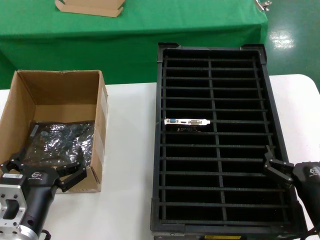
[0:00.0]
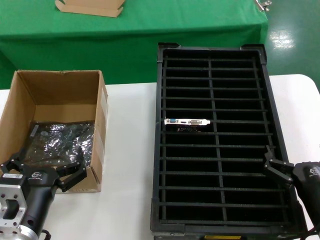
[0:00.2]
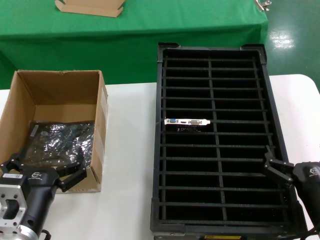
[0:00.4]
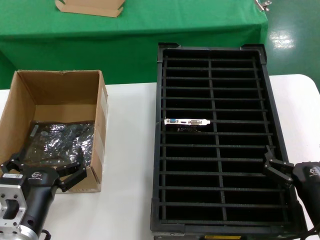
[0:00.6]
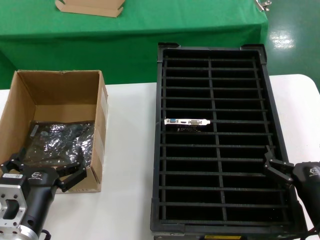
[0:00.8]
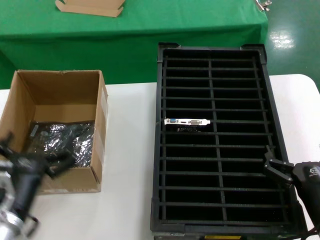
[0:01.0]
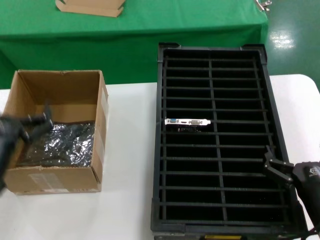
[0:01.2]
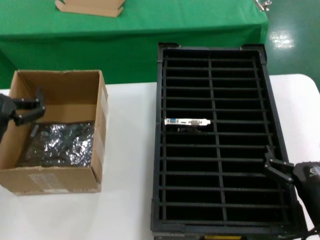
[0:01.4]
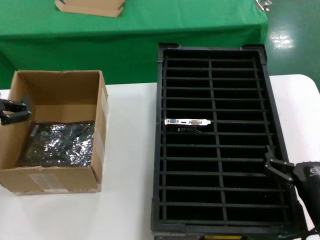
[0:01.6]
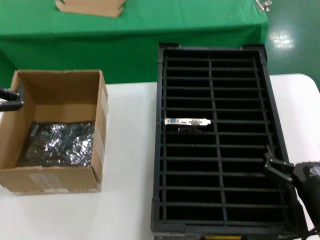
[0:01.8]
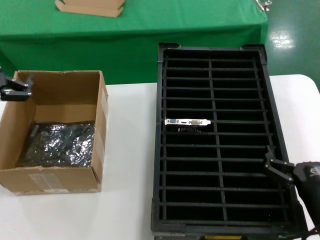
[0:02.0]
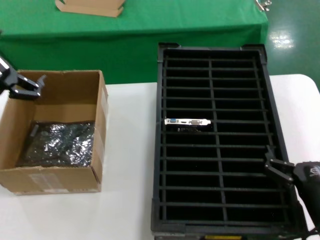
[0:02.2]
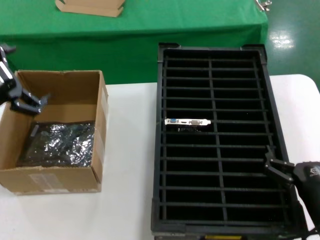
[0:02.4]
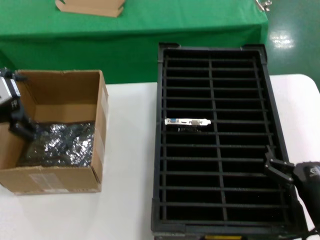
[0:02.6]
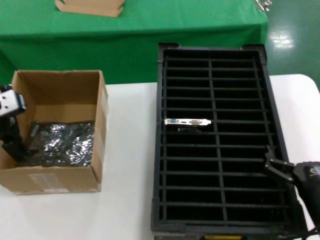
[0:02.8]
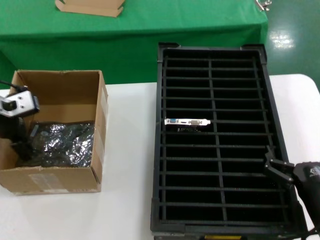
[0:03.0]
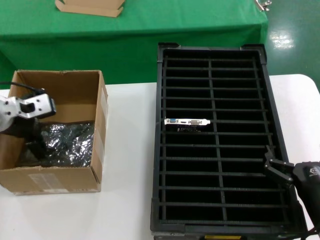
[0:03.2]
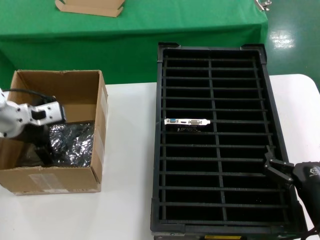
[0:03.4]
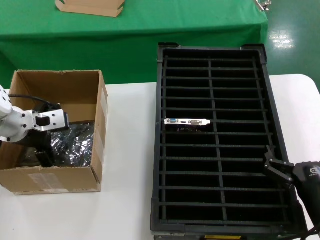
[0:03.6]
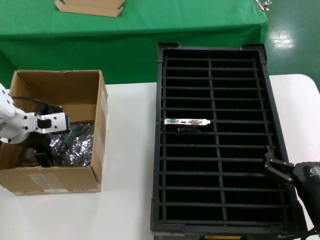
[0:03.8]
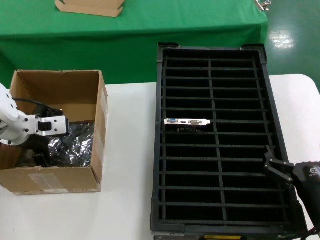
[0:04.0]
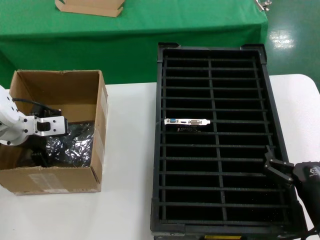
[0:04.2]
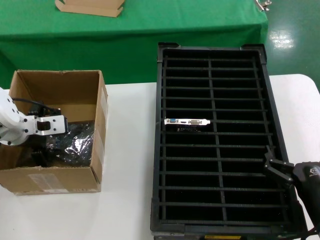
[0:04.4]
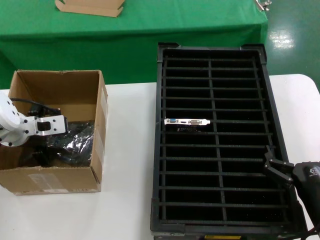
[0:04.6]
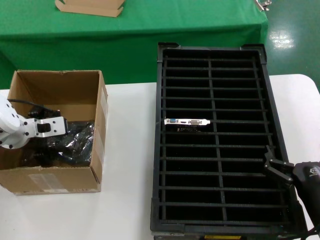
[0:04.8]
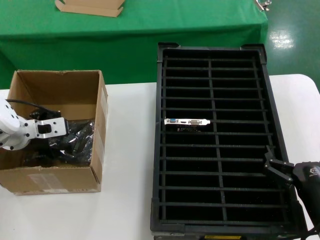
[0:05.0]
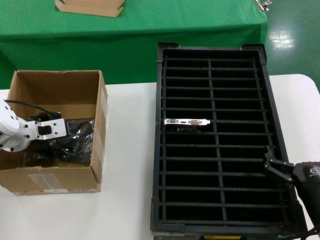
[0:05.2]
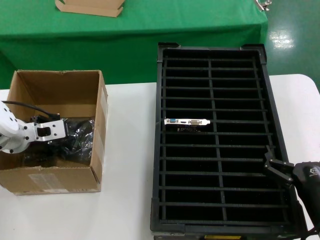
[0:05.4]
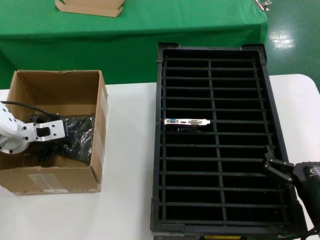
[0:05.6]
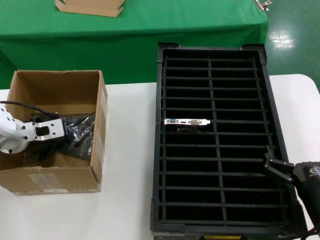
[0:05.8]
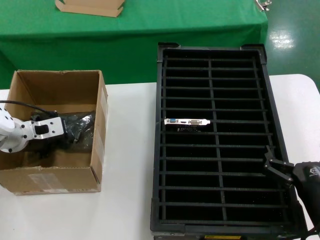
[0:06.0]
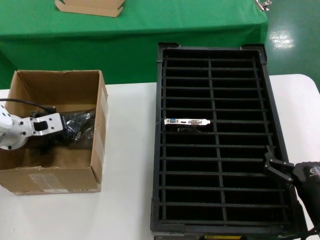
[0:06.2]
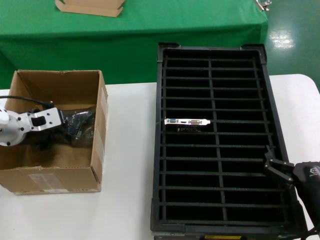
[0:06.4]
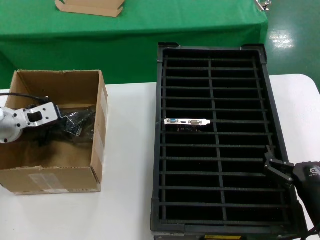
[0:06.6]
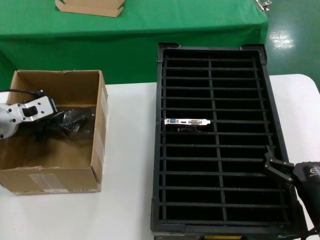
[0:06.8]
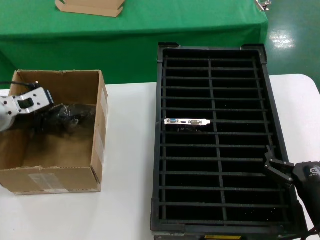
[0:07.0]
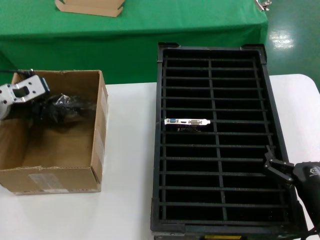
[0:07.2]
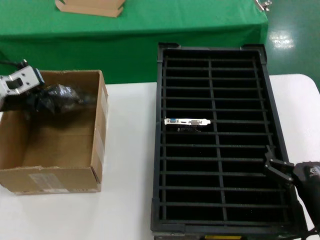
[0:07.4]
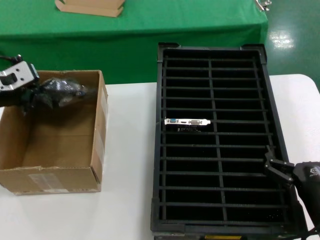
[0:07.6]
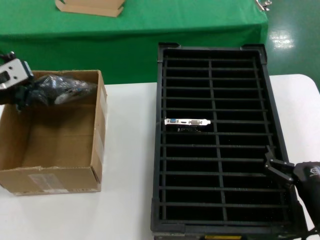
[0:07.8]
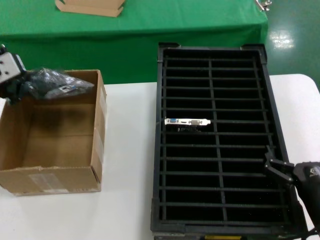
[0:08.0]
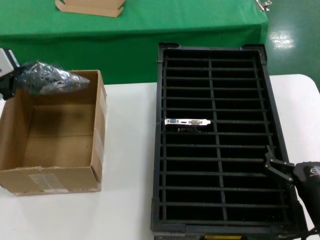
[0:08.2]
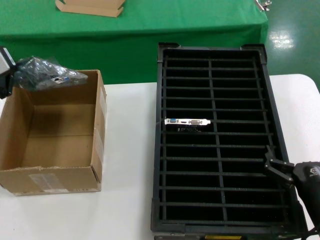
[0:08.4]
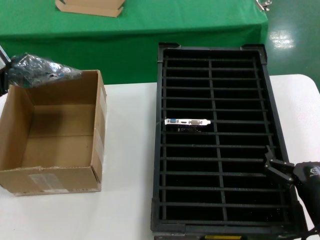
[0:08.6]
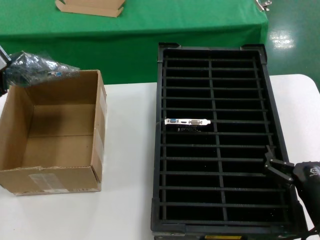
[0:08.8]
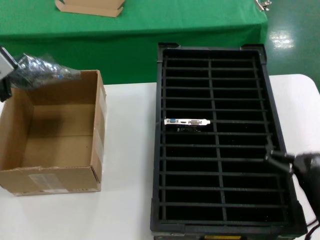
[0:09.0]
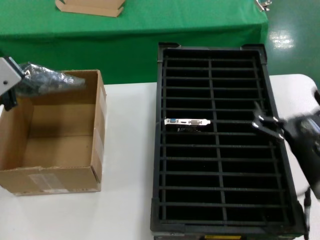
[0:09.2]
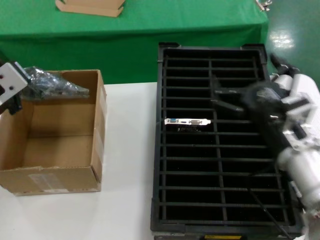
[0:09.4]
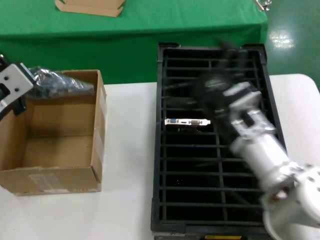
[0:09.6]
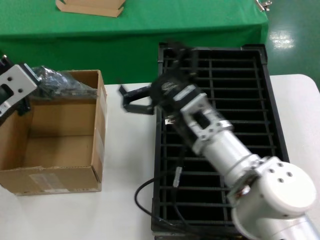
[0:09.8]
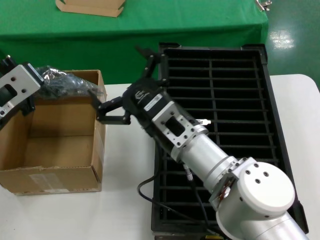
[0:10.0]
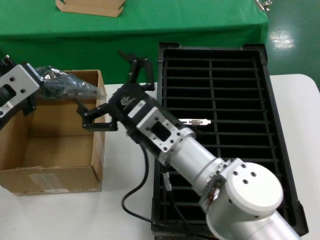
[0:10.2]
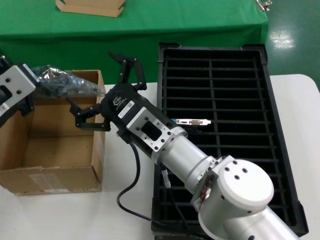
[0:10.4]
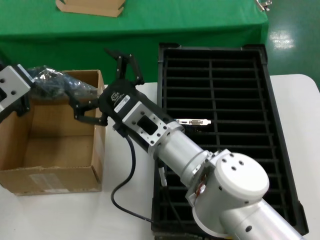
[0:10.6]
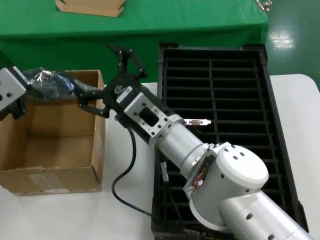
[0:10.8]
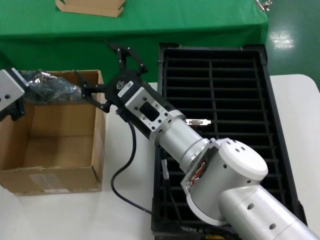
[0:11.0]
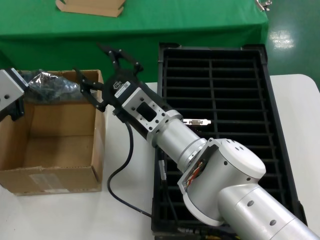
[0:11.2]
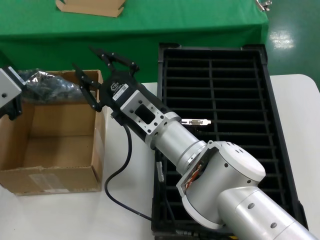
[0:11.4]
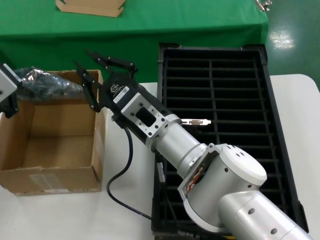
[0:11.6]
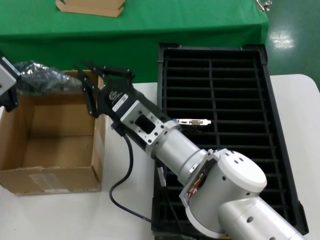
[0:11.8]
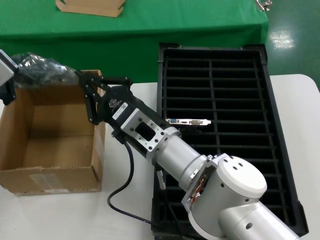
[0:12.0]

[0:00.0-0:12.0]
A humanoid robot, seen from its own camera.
Task of the whole recording: take out graphics card from box remove packaging put into black container.
Step, 0:00.0 to 0:06.0: Grasp the bag.
Step, 0:06.2 to 0:08.8: Lift the bag.
0:00.0 to 0:01.6: The left hand moves upward and to the left, some 15 cm.
0:01.6 to 0:03.0: The left hand travels forward and to the left by about 20 cm.
0:03.0 to 0:04.4: The left hand travels to the right and downward by some 10 cm.
0:04.4 to 0:06.0: The hands move only a little.
0:06.0 to 0:07.6: The left hand shifts about 10 cm upward.
0:07.6 to 0:09.0: The left hand is displaced backward and to the right by roughly 15 cm.
0:09.0 to 0:10.4: The left hand shifts by approximately 5 cm, while the right hand goes about 25 cm to the left and forward.
0:10.4 to 0:12.0: There are only small adjustments of the hands.

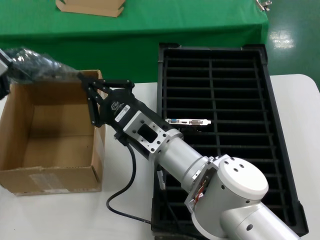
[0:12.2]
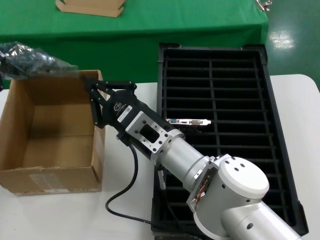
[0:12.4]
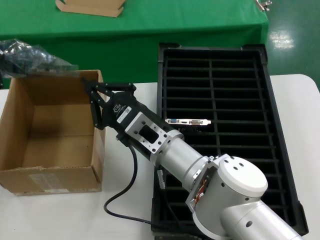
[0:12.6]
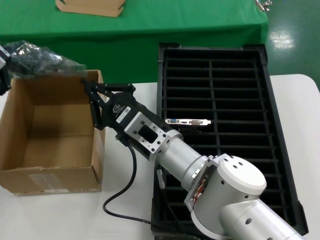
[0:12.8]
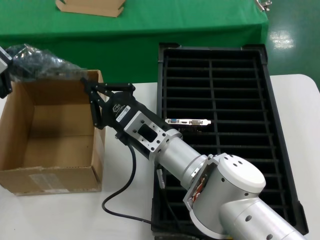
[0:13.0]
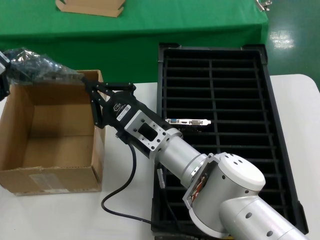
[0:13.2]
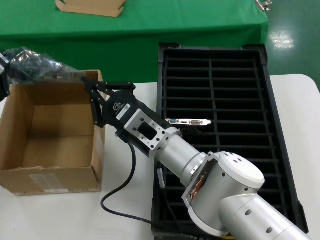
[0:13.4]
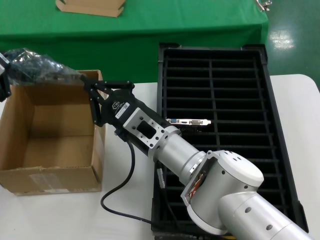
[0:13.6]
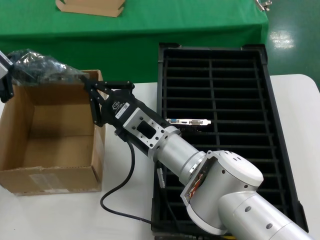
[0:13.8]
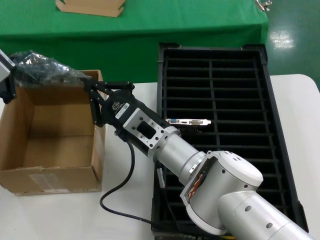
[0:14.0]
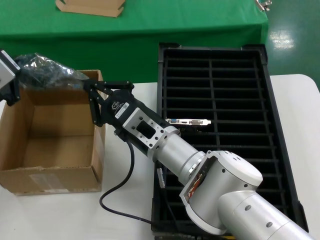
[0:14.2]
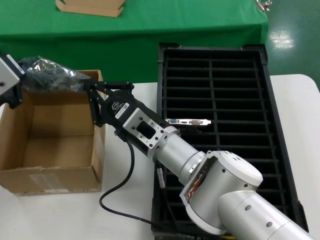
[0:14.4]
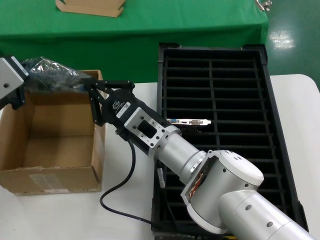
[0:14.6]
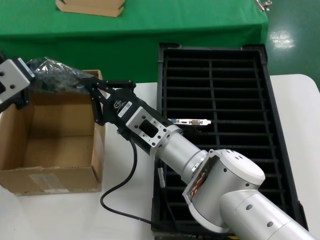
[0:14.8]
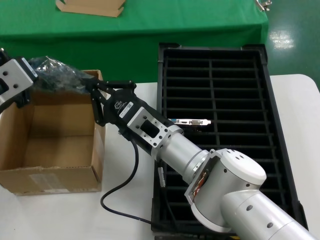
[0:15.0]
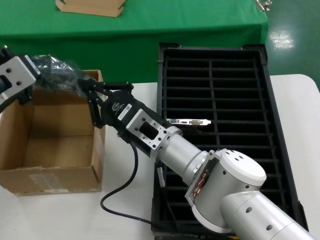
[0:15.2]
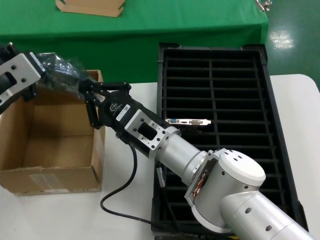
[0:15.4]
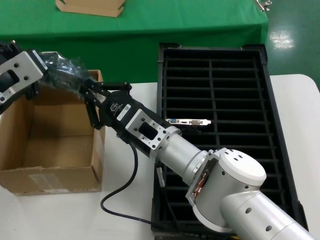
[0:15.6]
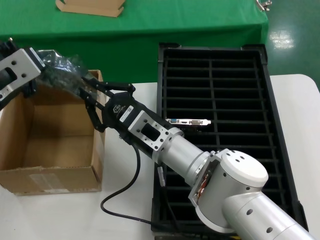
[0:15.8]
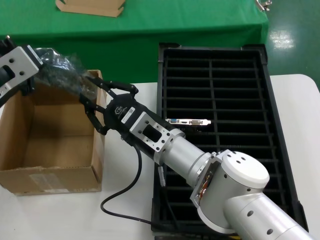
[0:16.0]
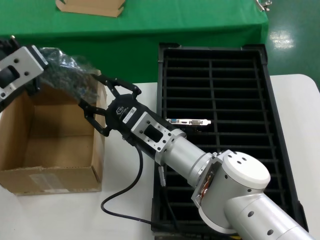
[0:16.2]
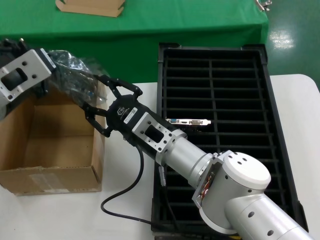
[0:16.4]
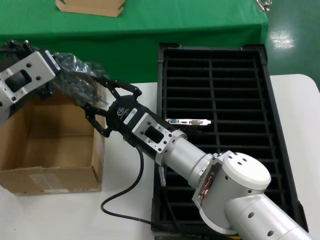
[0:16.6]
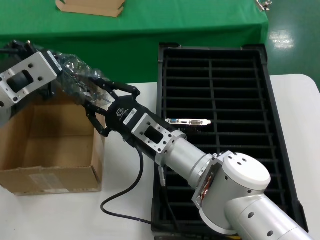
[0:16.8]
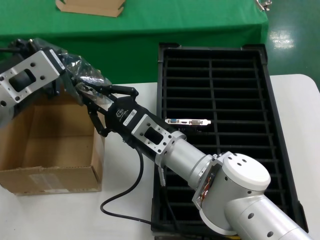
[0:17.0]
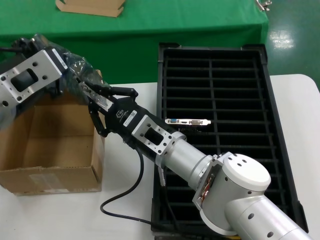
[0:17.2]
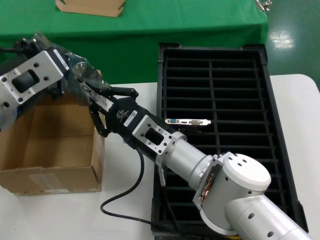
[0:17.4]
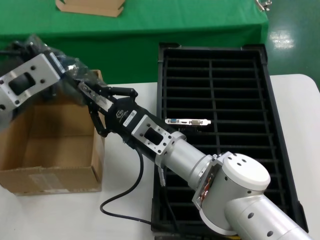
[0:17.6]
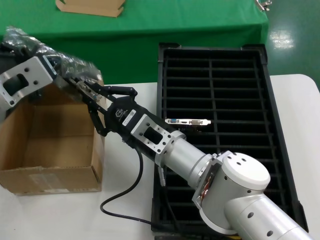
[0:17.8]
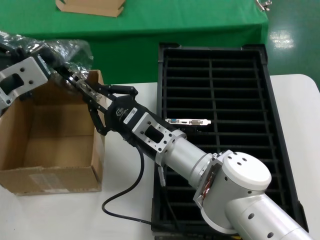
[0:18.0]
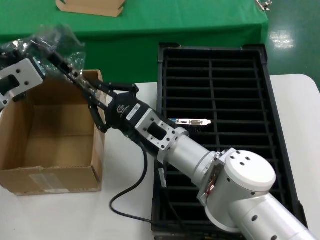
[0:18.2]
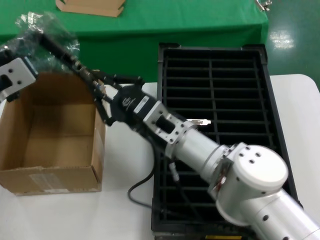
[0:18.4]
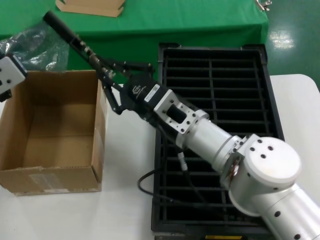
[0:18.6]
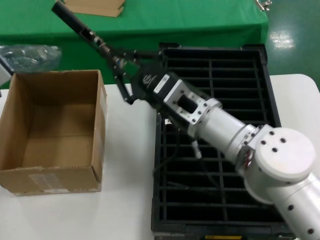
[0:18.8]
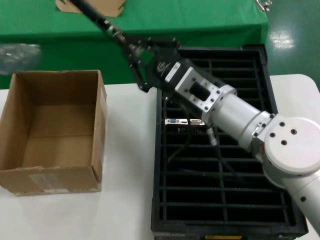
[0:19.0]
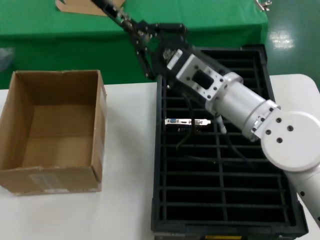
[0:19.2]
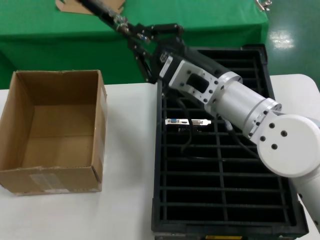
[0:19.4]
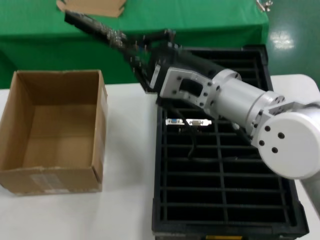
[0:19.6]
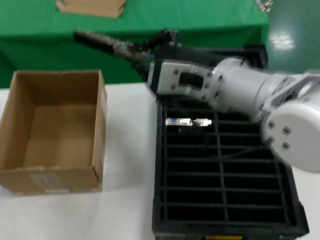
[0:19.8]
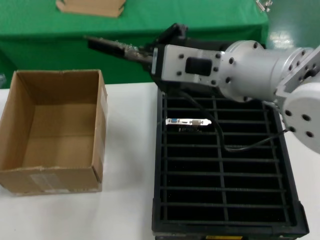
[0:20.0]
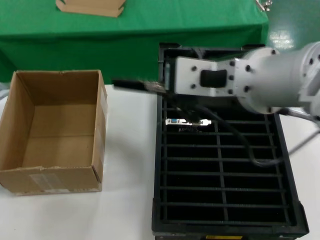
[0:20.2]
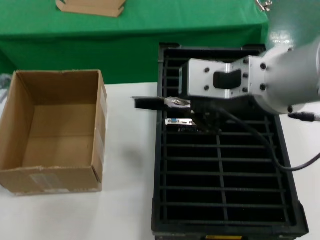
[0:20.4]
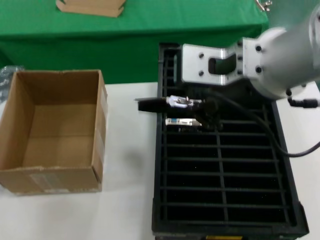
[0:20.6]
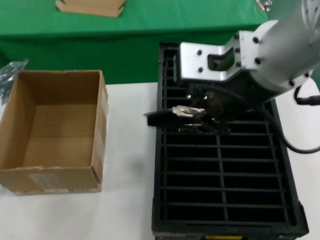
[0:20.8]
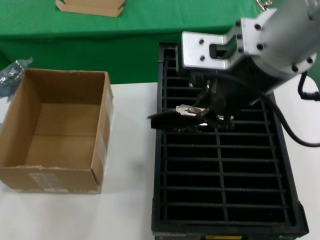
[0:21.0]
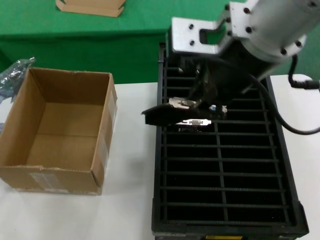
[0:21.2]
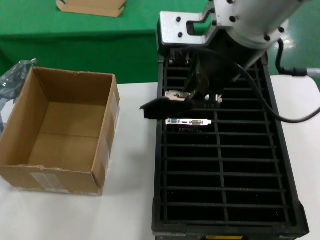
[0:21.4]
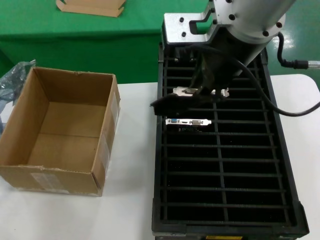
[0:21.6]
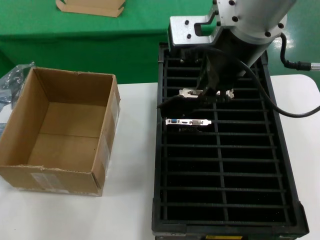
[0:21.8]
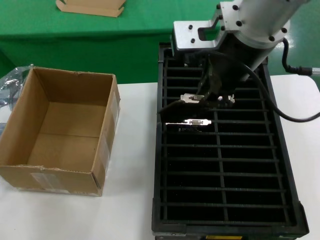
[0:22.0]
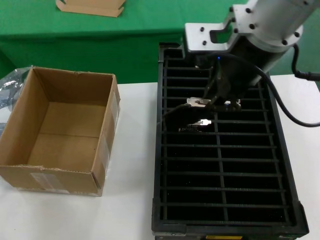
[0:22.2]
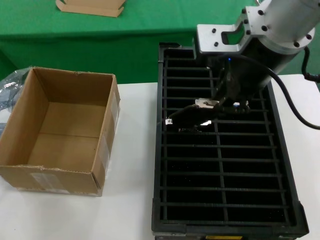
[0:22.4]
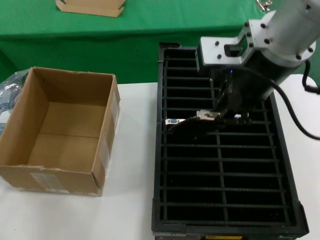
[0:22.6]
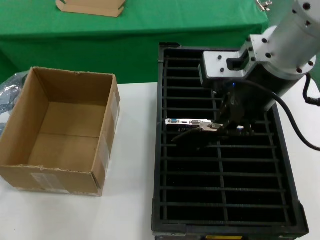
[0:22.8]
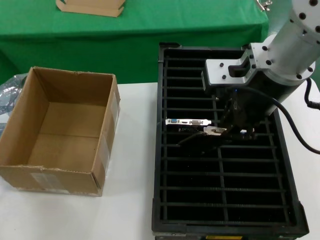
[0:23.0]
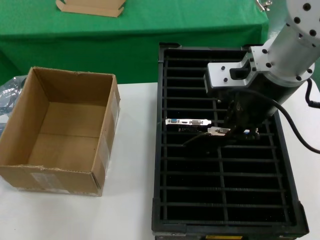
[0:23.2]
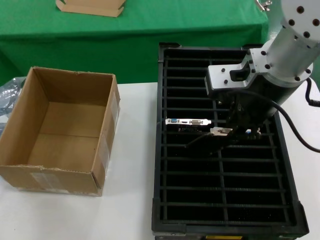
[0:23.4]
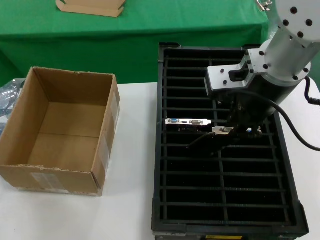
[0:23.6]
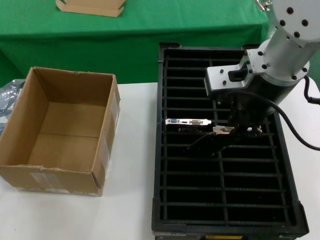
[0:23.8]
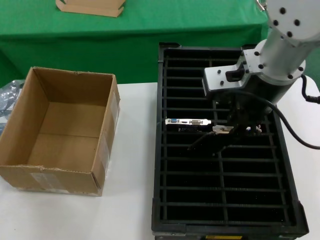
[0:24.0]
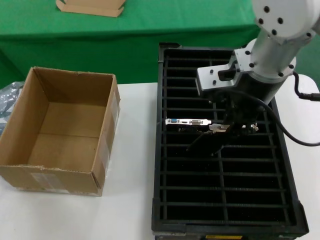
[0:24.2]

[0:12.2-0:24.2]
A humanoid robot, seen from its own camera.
Task of the whole recording: take out graphics card from box remove packaging put into black container.
Step, 0:12.2 to 0:18.6: Take out the hard disk of the bag.
0:12.2 to 0:18.2: There are only small adjustments of the hands.
0:18.2 to 0:19.8: The right hand is displaced upward by about 15 cm, while the left hand goes some 25 cm to the left.
0:19.8 to 0:21.2: The left hand is displaced downward and forward by about 10 cm, while the right hand goes about 15 cm upward.
0:21.2 to 0:22.6: The right hand moves forward, roughly 5 cm.
0:22.6 to 0:24.2: The right hand changes place by approximately 5 cm.
